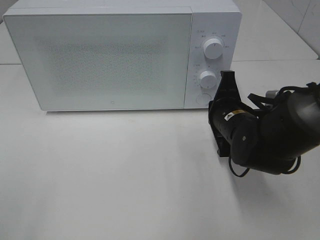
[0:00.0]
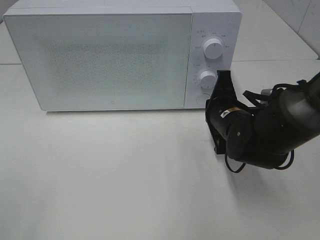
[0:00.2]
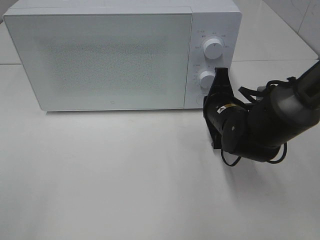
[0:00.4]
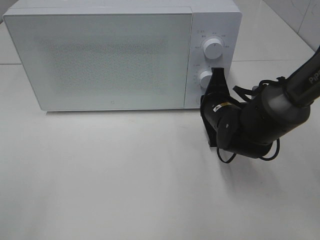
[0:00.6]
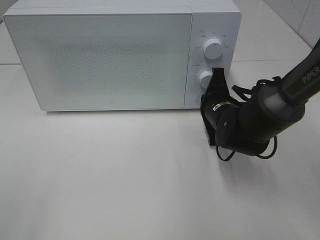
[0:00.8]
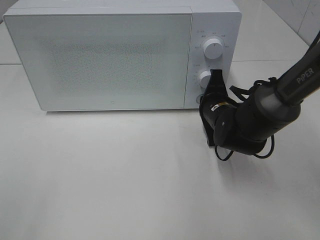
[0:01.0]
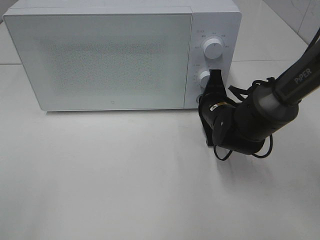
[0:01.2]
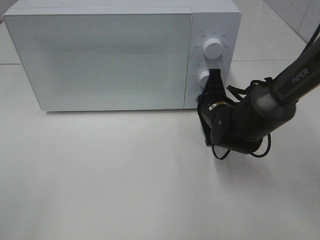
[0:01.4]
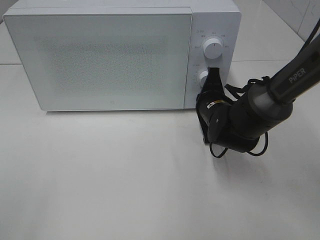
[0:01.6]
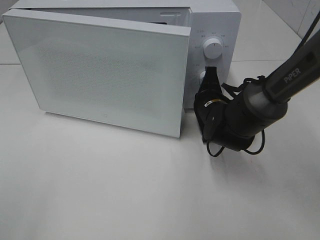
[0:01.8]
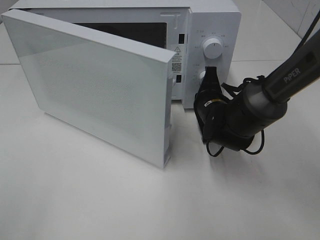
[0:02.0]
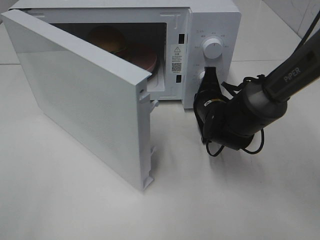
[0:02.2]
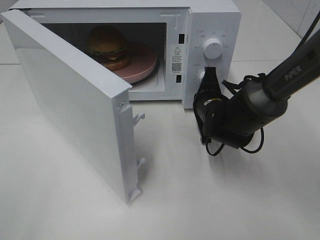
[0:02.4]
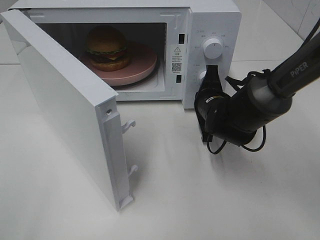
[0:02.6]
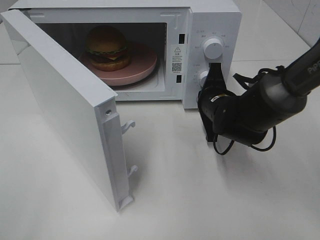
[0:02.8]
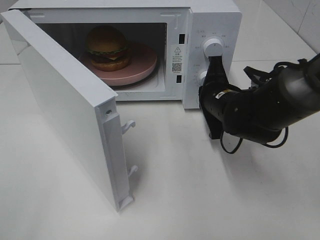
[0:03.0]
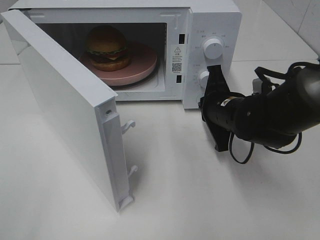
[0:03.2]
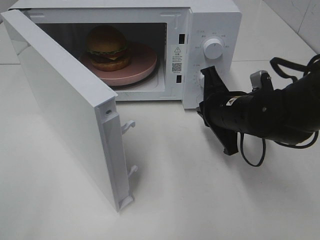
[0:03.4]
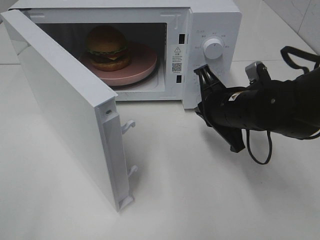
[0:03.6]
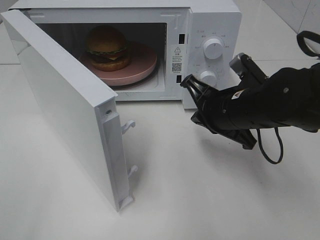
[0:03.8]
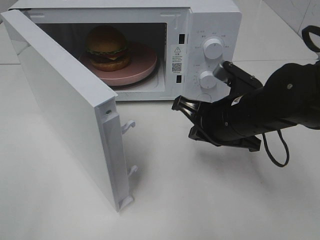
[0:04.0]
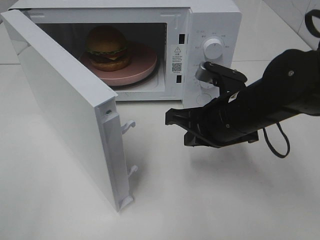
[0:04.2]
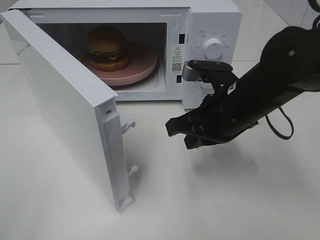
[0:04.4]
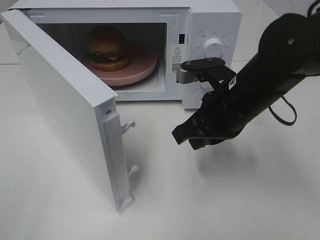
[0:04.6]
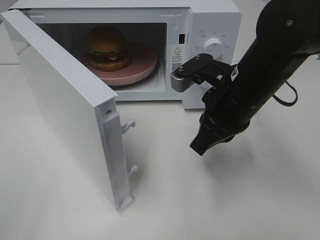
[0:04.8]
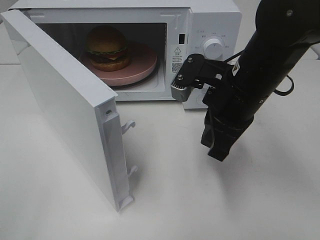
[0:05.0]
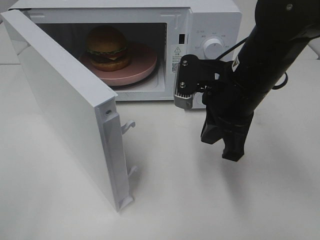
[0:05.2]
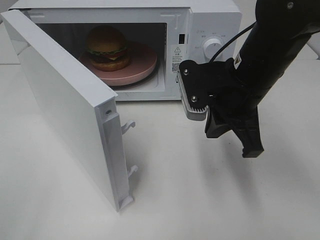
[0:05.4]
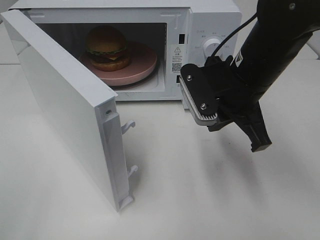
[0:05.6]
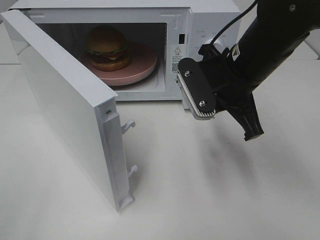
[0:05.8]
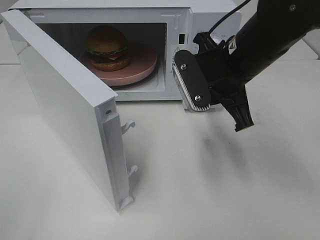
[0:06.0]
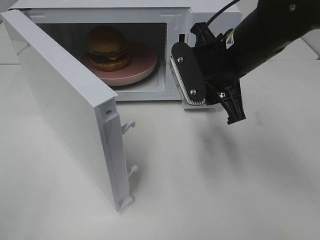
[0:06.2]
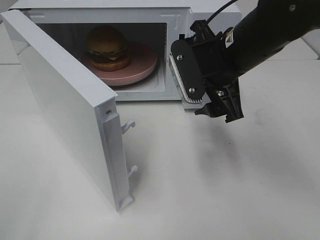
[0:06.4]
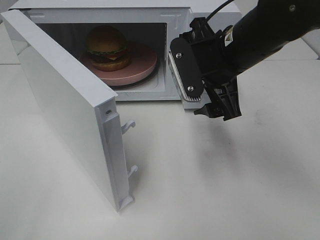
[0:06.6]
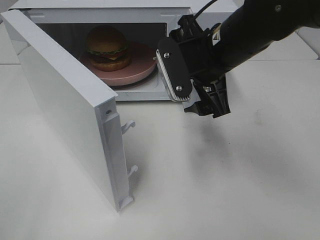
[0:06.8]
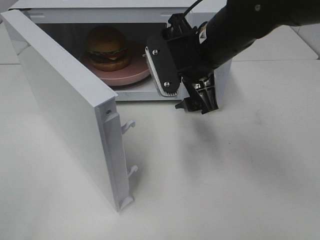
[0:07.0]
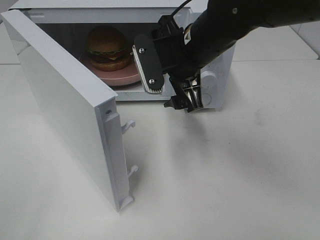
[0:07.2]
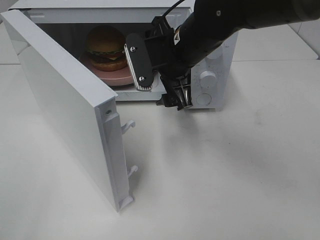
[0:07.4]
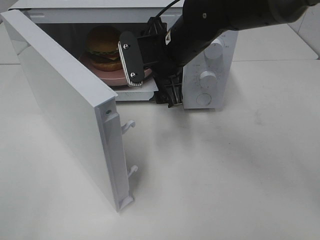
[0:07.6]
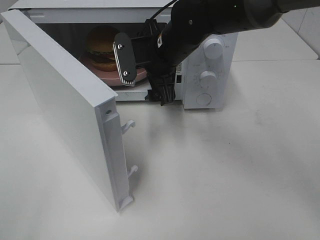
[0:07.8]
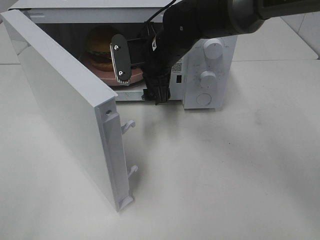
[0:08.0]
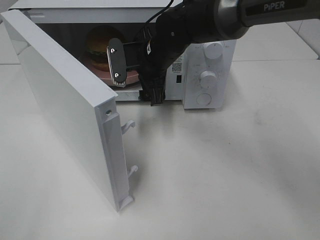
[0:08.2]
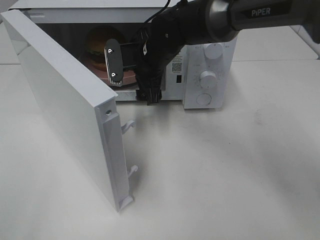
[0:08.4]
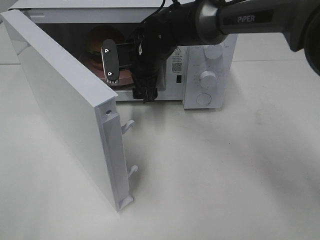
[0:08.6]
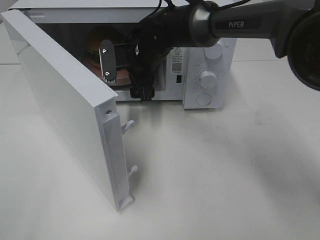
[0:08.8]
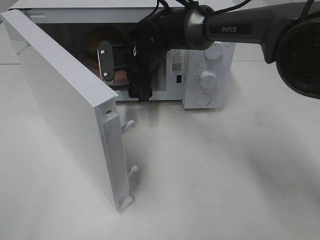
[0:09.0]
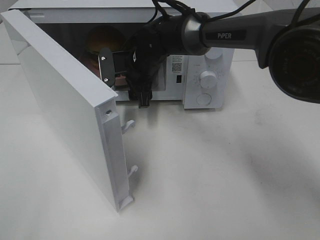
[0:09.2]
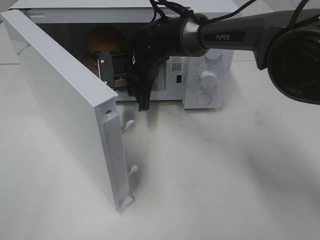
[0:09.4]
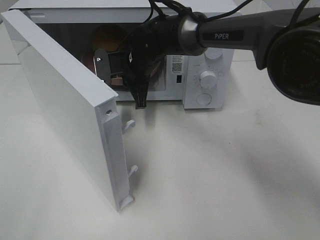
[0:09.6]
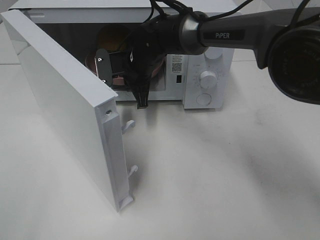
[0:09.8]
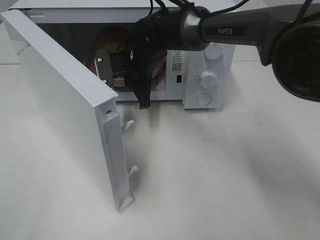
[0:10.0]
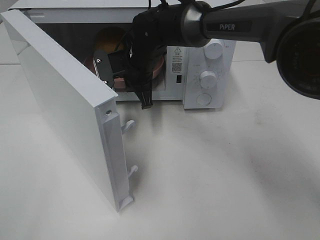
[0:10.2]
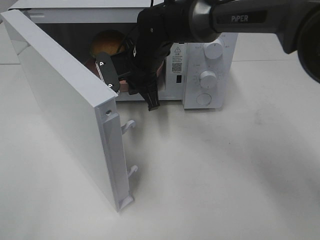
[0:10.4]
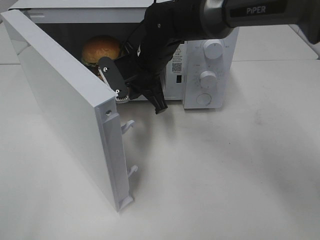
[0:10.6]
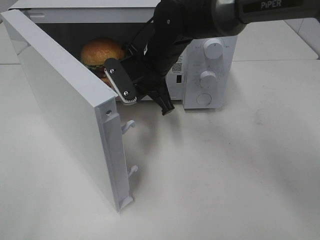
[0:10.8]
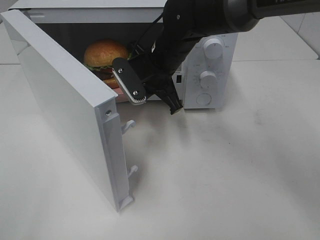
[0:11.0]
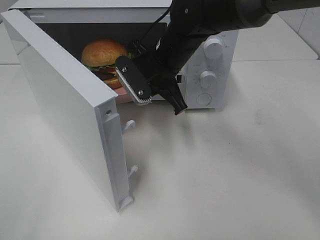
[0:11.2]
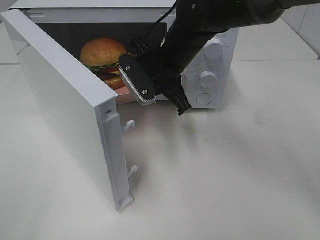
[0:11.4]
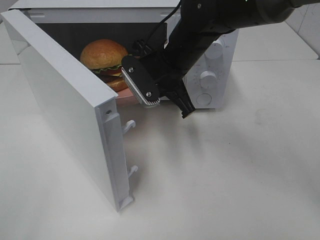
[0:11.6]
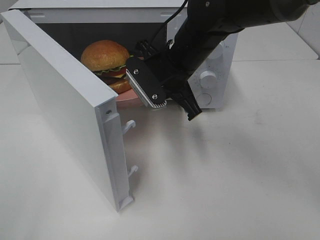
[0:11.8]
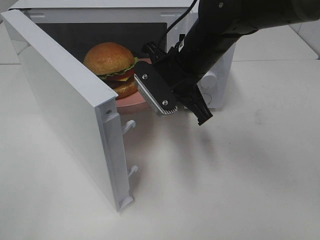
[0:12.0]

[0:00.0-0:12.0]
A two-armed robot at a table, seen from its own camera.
Task of the whole recording: Heat the burger.
Step, 0:00.0 to 0:03.0: Right hand: press the switch.
Step, 0:03.2 to 0:09.6: Right hand: grab the plate with the hamburger.
0:00.0 to 0:01.6: The right gripper shifts approximately 5 cm forward.
0:03.0 to 0:04.4: The right gripper goes about 10 cm backward and upward.
0:04.4 to 0:06.0: The right gripper is displaced upward by roughly 5 cm.
0:06.0 to 0:07.6: The right gripper heads to the left and forward, covering some 10 cm, and opens its fingers.
0:07.6 to 0:09.0: The right gripper is displaced forward, downward and to the left by approximately 10 cm.
0:09.0 to 0:10.4: The right gripper closes its fingers.
0:10.4 to 0:12.0: The right gripper is displaced backward and to the right by about 10 cm.

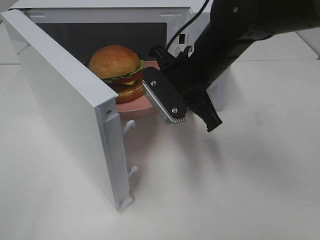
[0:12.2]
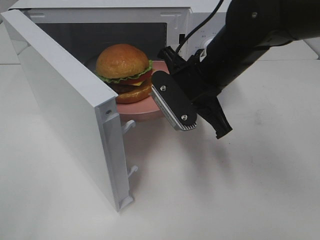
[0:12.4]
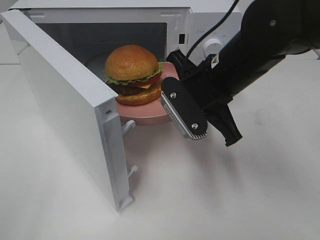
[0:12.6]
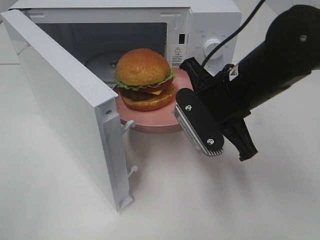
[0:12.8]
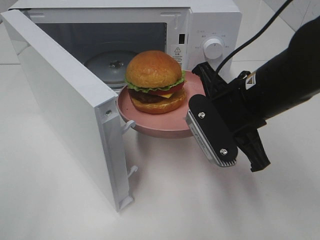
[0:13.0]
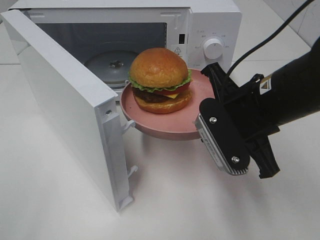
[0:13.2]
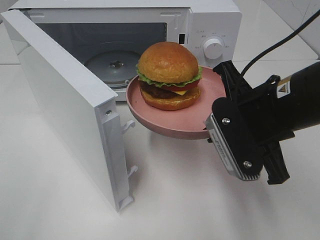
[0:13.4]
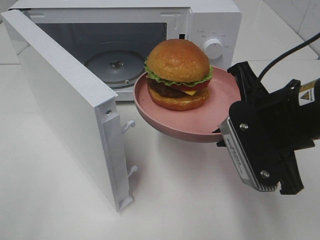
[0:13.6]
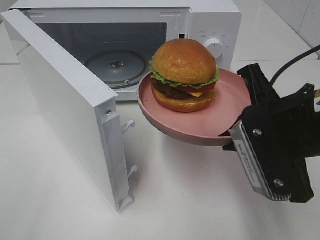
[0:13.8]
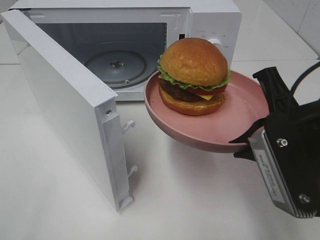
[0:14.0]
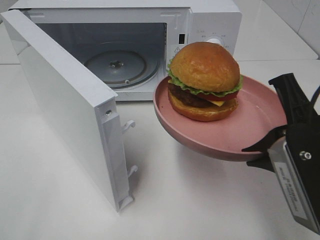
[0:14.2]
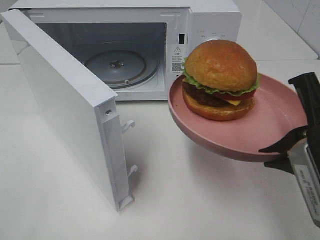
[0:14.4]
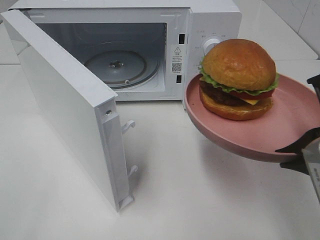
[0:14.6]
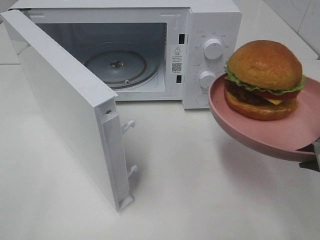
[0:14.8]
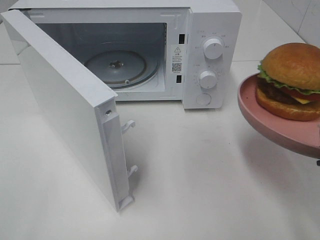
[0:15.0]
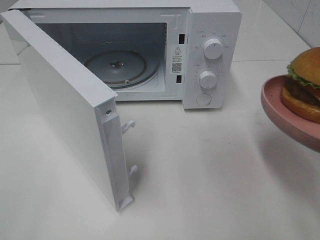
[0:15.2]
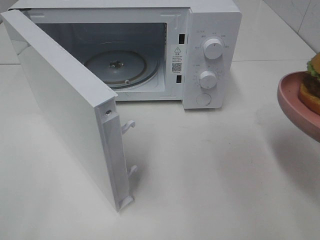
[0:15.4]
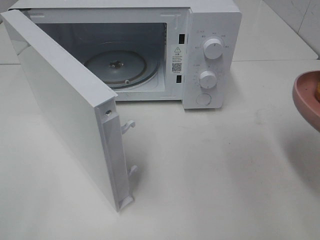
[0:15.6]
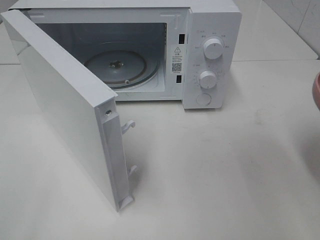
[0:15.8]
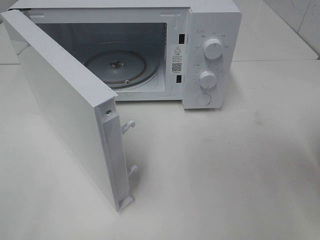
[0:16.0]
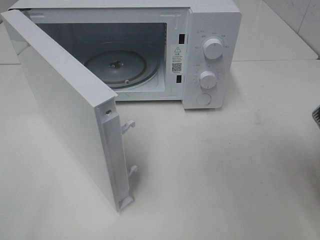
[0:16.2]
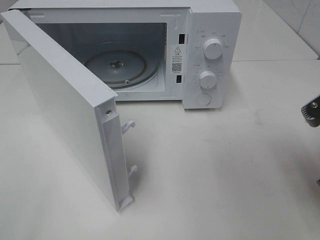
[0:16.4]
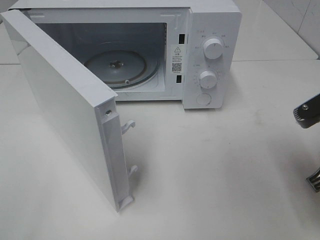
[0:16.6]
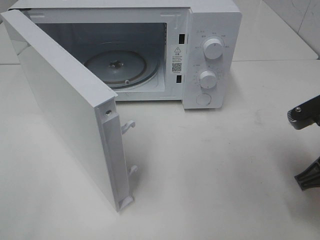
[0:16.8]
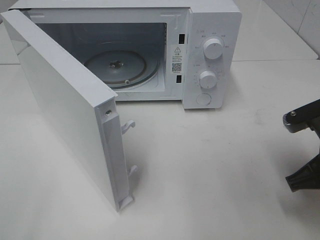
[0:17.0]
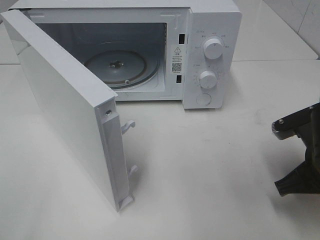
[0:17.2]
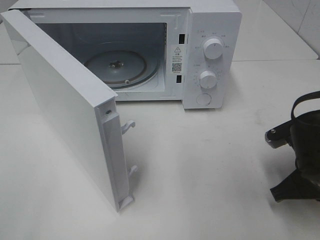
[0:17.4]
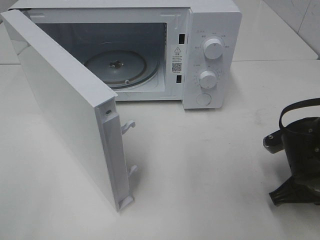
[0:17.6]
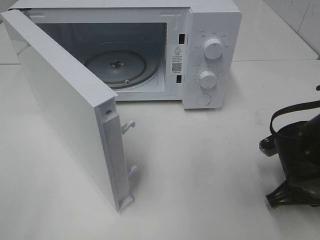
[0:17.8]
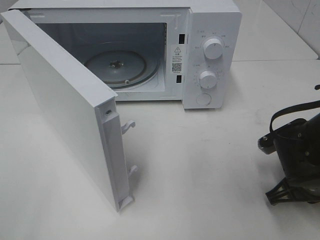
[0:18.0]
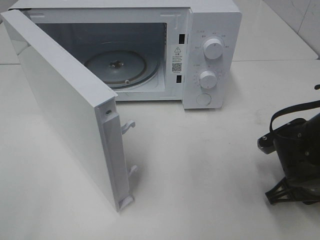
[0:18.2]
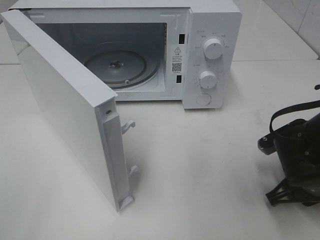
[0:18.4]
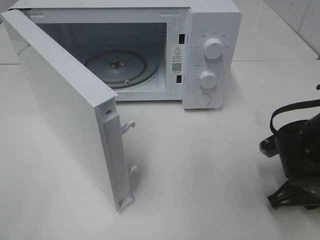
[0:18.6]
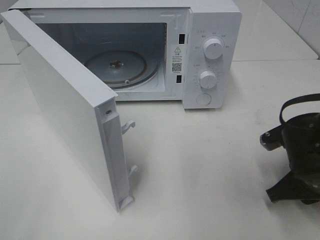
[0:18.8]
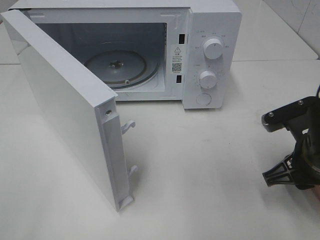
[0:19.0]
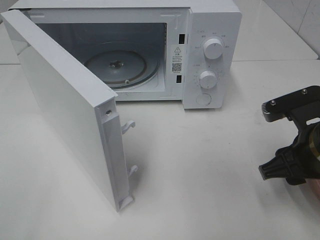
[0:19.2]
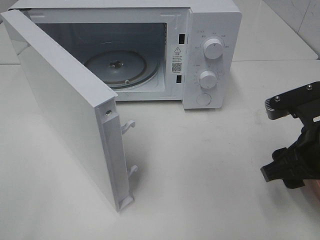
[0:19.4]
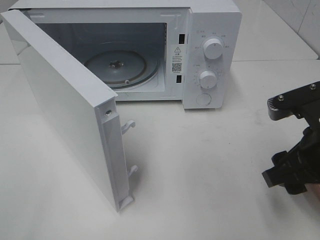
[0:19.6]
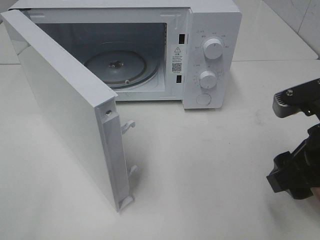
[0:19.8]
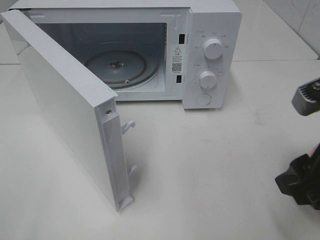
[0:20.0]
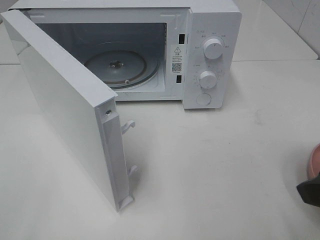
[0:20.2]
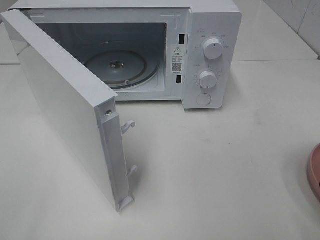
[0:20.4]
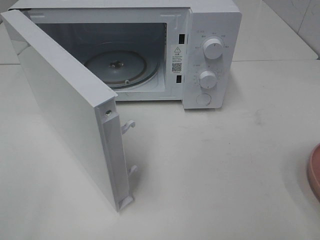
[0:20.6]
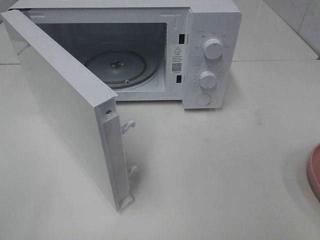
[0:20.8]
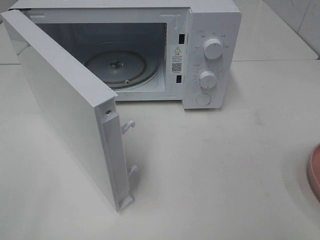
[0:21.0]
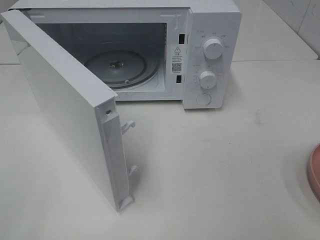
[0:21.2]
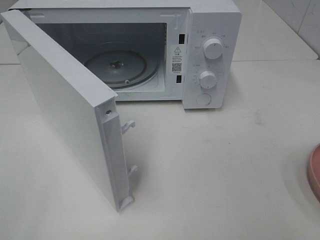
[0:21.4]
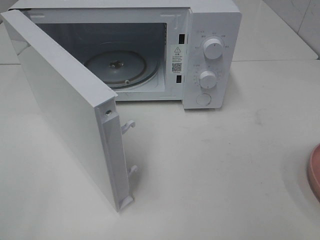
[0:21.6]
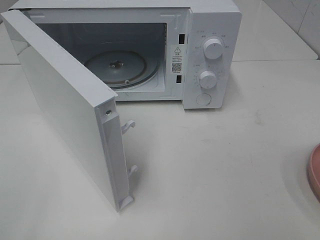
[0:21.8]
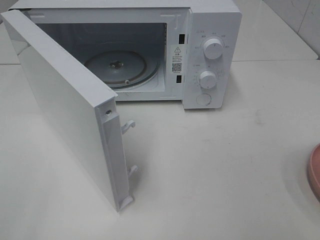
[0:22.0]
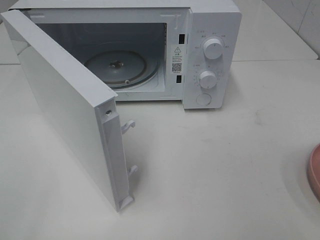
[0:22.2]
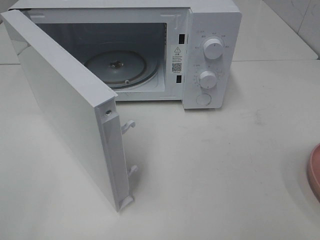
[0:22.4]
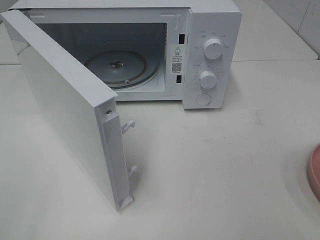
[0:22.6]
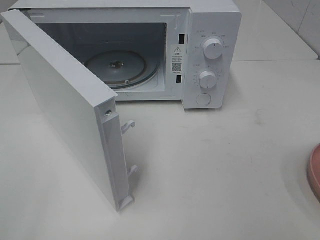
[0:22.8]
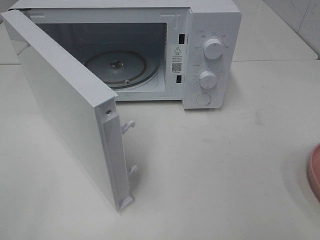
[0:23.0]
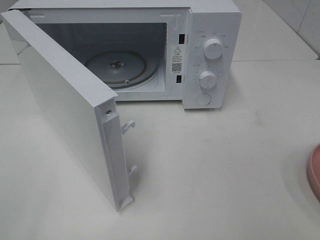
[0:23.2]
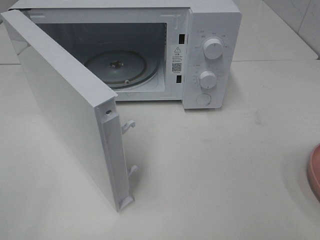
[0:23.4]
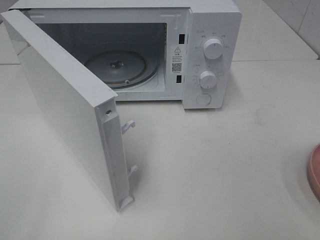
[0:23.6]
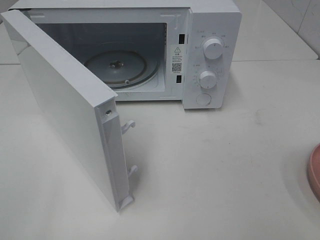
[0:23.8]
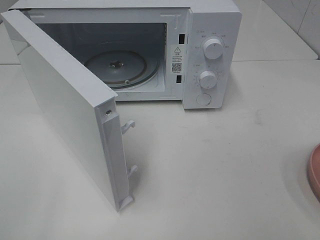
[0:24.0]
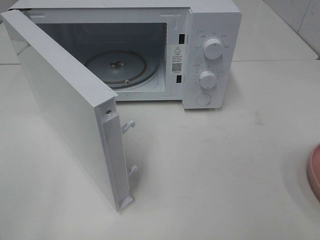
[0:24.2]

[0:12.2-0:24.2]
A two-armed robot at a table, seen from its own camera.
Task of the whole recording: Heat the burger.
Step, 0:12.2 to 0:18.2: Right hand: place the plate on the table.
0:12.2 to 0:13.8: The right gripper travels backward and to the right by roughly 15 cm.
0:13.8 to 0:15.2: The right gripper is displaced to the right and backward by some 10 cm.
0:15.2 to 0:16.6: The right gripper moves downward, approximately 5 cm.
0:16.6 to 0:18.2: The right gripper shifts about 10 cm downward.
0:18.2 to 0:19.8: The right gripper travels upward by roughly 10 cm, and opens.
0:19.8 to 0:21.2: The right gripper heads backward, to the right and upward, covering approximately 15 cm.
